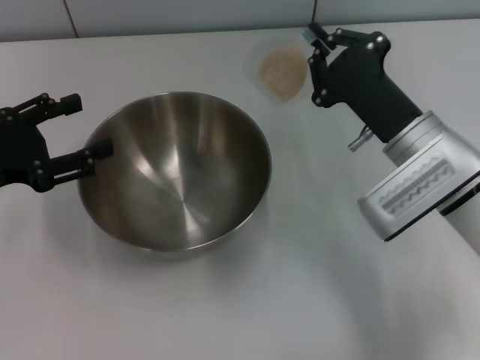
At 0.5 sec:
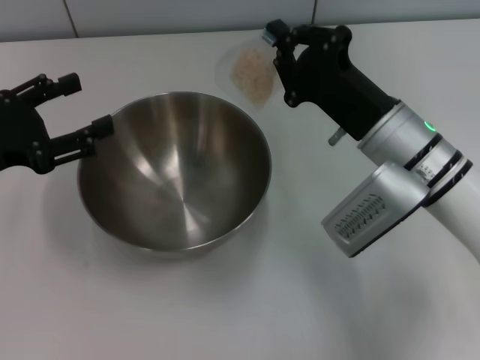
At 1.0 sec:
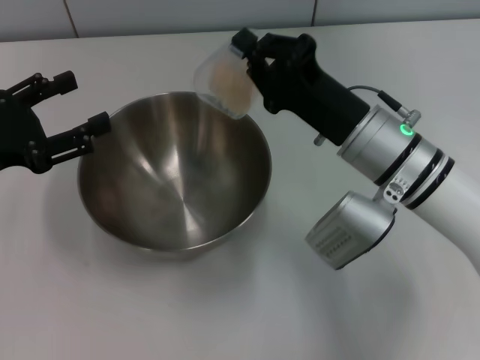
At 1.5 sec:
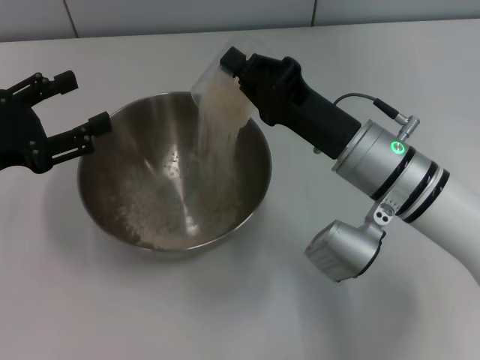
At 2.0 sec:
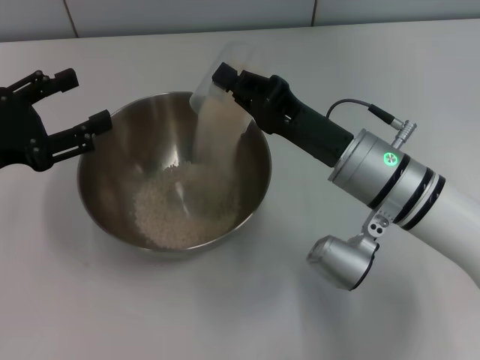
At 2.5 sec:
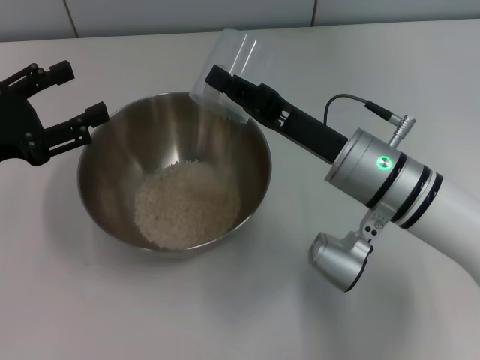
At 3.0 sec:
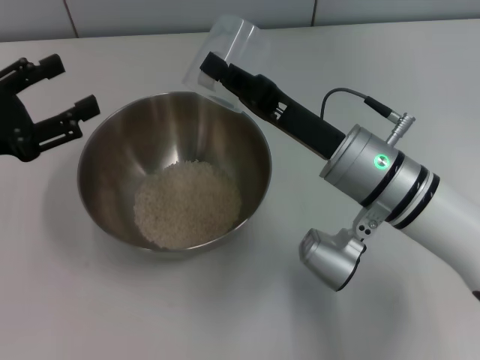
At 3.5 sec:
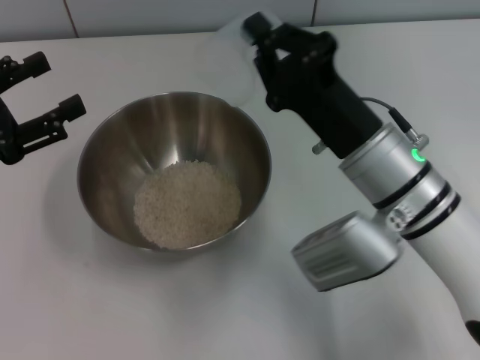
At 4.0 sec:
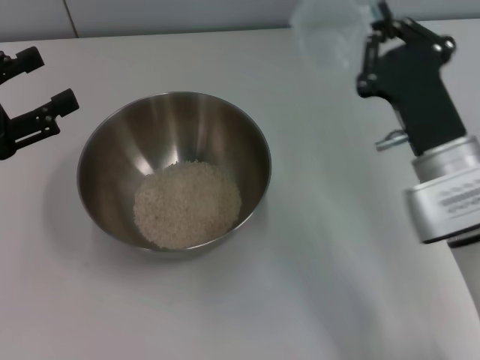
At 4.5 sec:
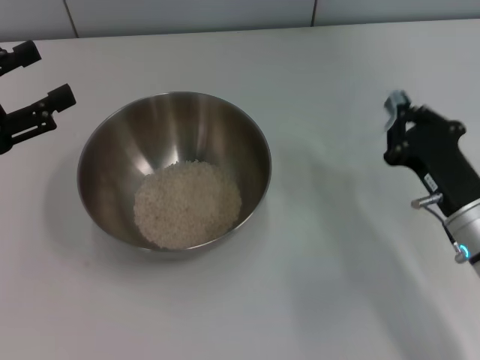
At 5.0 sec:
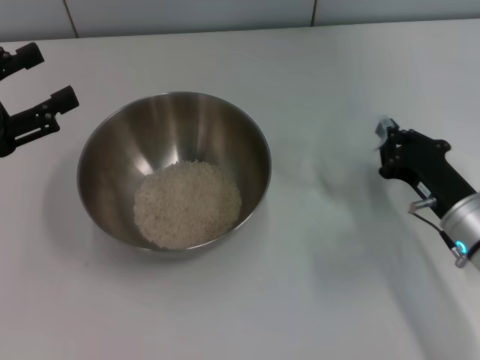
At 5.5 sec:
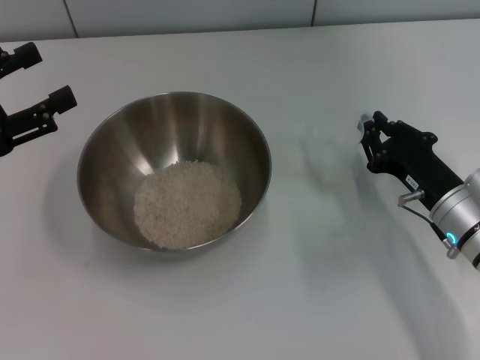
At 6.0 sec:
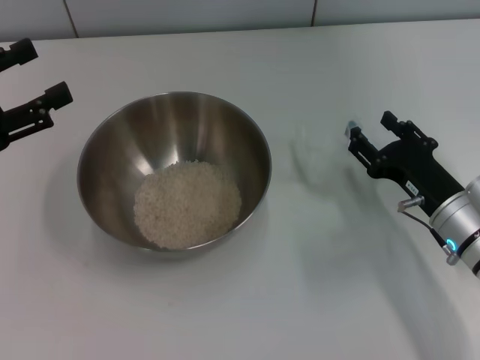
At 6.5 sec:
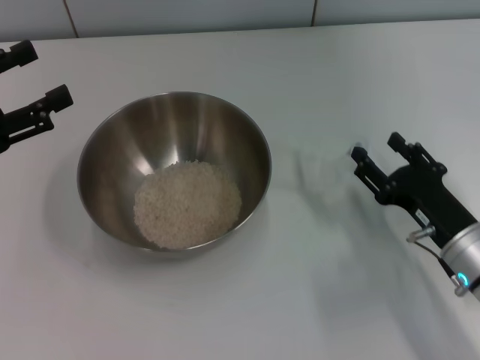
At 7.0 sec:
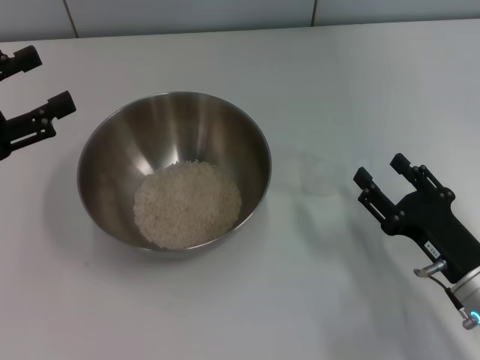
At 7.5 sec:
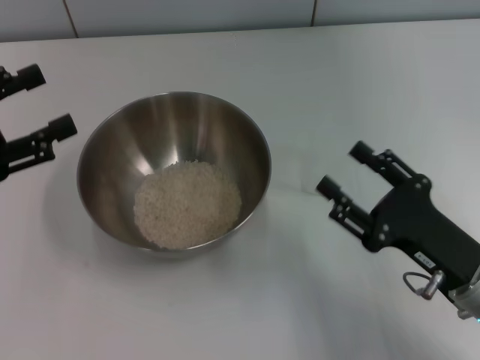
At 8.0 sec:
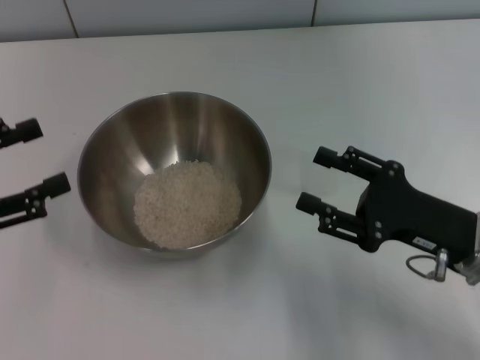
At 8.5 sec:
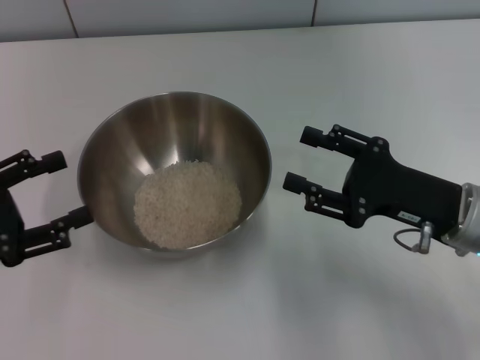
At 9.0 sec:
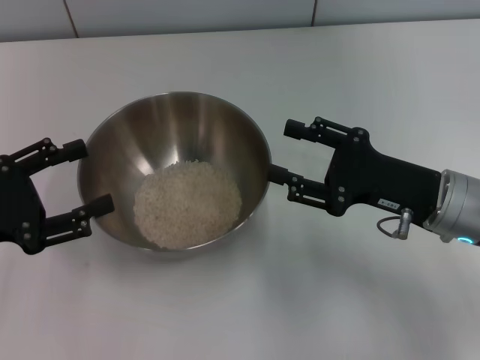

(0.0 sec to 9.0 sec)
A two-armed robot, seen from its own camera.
Task of the whole recording: Place the bowl in the middle of the table with one hand and pour the rice from the grain cup into it with the other hand.
Step, 0.0 sec - 2.5 sec: Pour the rice from the cup into the bowl with the right gripper.
Step, 3.5 sec - 6.5 sec: Place the cup on the table with the right gripper.
2.0 sec - 4.5 sec: The right gripper heads to the right and backward, covering some 10 cm.
4.5 sec - 7.0 sec: The right gripper moves backward, about 5 cm, and opens.
7.0 sec - 9.0 sec: The right gripper heads forward and upward, covering roughly 10 cm; the left gripper ends up about 5 cm from where it was.
